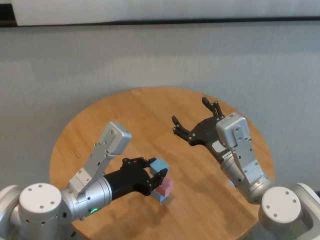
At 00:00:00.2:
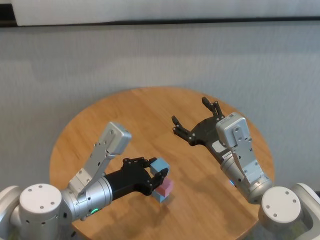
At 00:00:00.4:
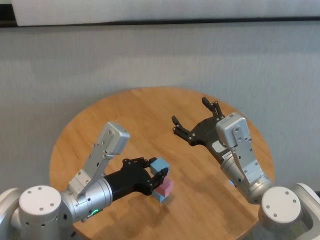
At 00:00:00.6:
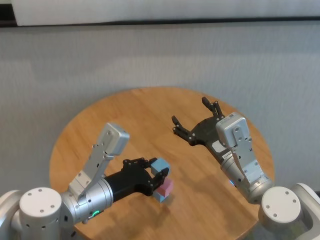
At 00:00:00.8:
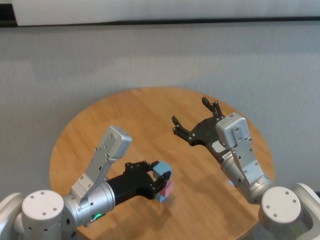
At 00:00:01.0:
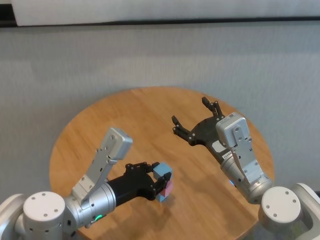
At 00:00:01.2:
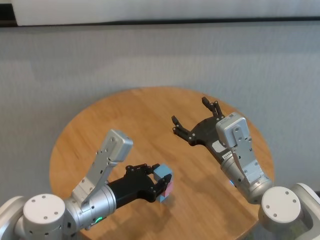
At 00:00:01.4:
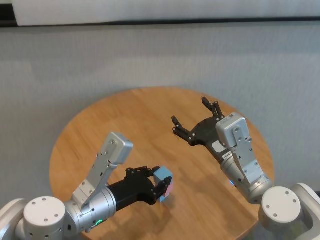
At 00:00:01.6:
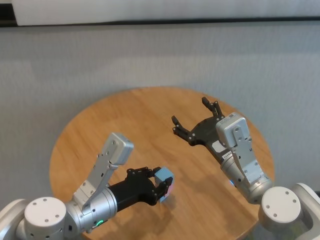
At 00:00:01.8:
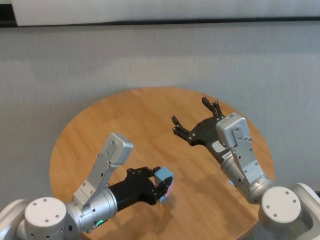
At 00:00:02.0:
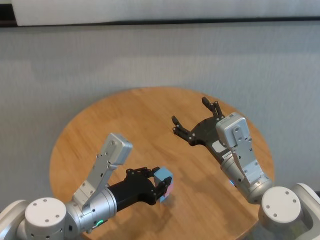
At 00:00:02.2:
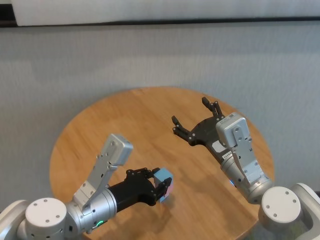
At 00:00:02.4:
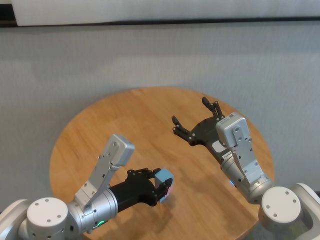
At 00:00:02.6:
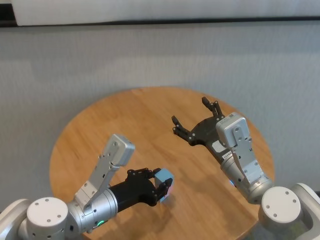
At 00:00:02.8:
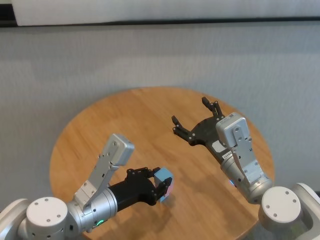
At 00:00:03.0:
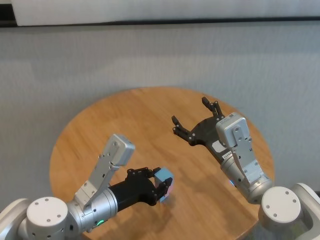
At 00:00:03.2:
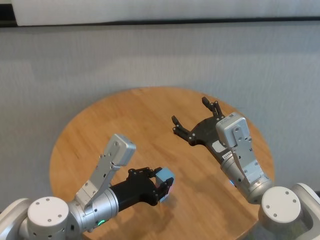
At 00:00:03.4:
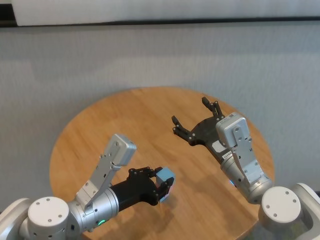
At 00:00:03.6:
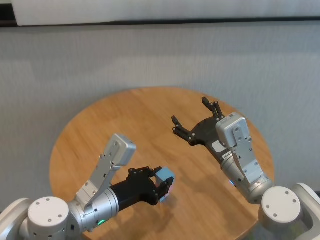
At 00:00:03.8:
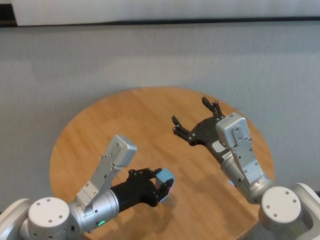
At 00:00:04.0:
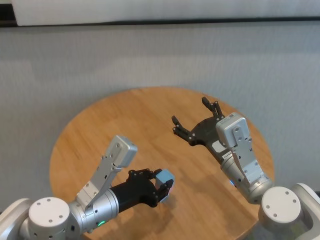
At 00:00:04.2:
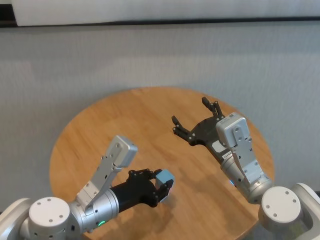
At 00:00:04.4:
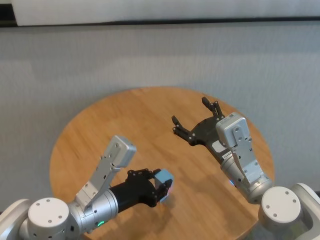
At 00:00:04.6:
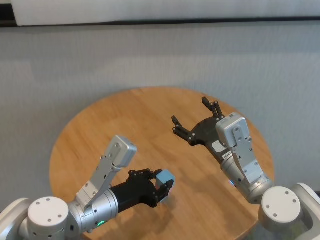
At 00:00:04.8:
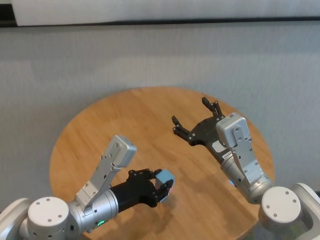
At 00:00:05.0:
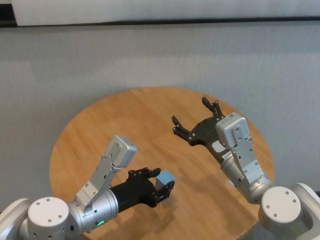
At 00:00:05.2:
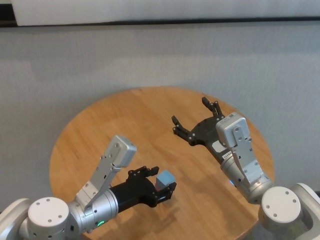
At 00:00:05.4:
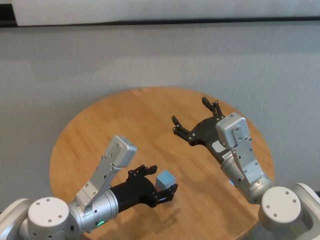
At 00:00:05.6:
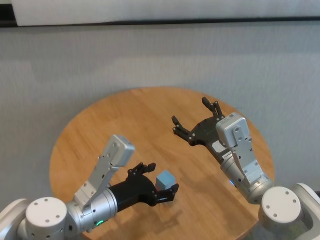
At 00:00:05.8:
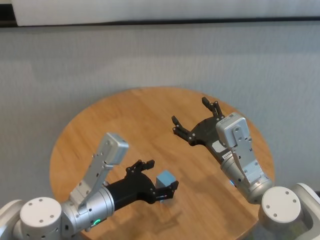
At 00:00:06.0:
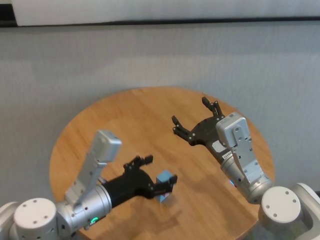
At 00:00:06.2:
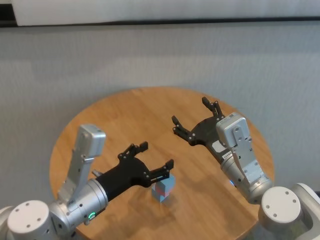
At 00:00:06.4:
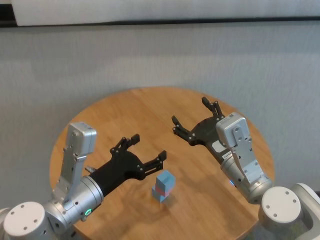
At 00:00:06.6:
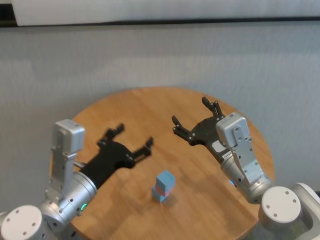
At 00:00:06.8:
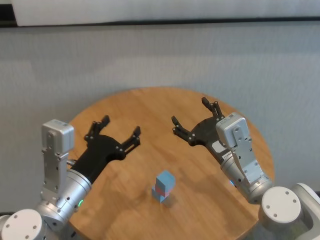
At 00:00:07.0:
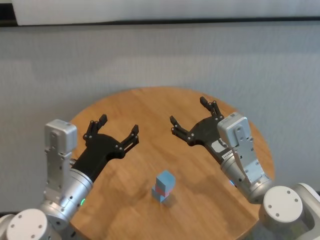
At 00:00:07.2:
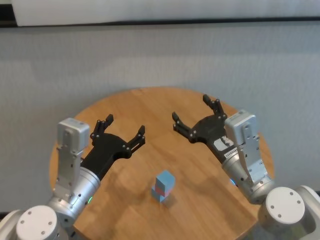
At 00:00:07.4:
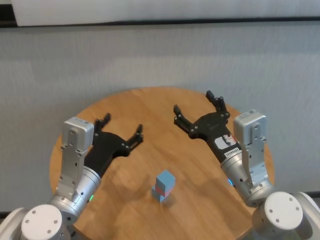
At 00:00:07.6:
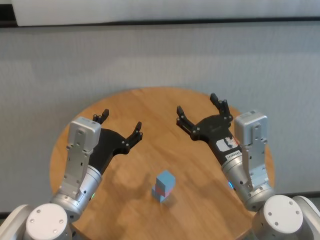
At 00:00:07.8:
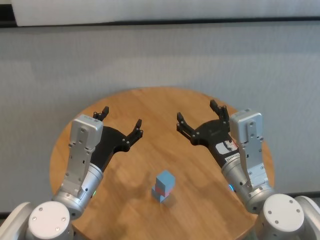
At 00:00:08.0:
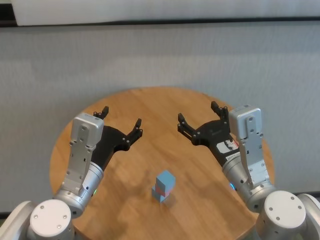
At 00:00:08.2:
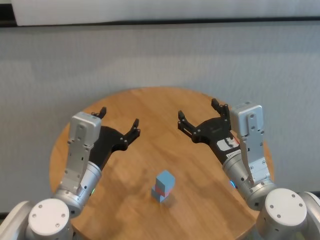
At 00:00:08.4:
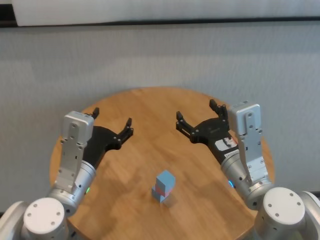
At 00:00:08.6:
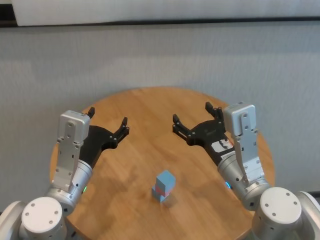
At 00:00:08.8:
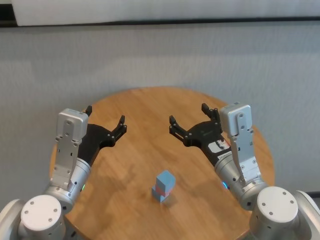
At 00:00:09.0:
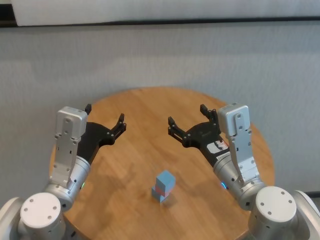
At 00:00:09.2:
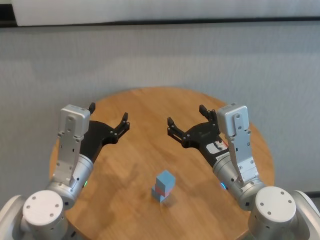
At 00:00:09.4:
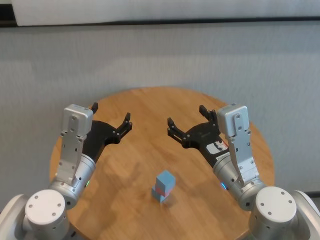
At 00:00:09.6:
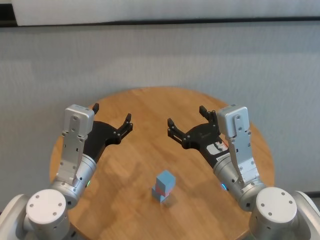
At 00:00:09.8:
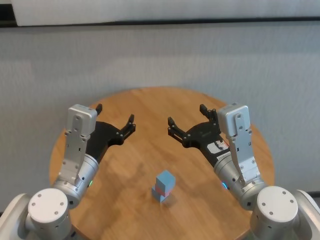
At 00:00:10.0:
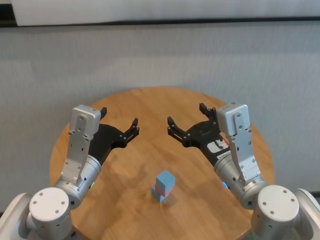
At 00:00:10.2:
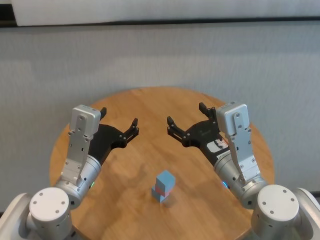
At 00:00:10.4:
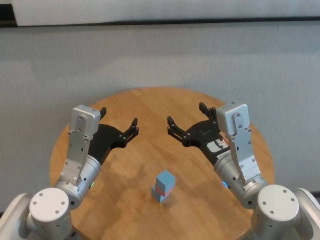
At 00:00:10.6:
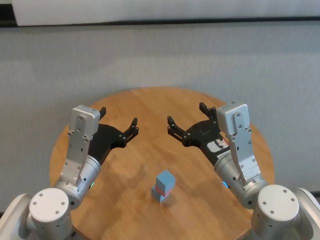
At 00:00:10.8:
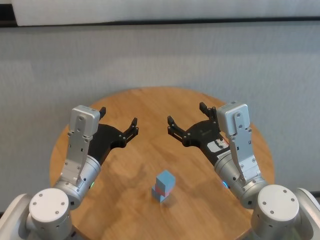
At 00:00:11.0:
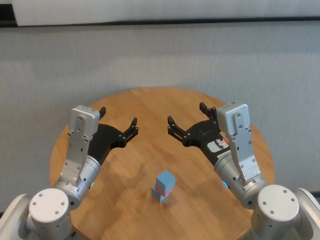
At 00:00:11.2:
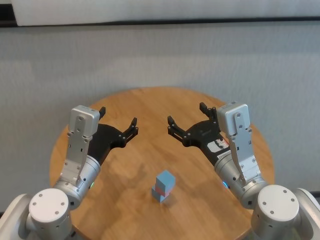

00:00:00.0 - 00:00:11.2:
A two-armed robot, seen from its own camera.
Task of the whole recording: stack building blocks on the table.
Step, 00:00:00.0 - 00:00:05.2: Place the blue building block on the pink building blocks with left gripper.

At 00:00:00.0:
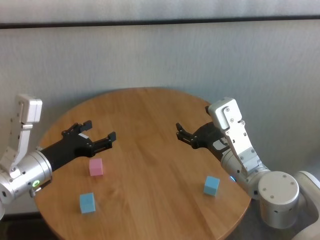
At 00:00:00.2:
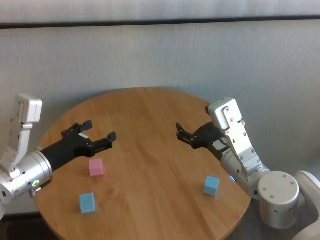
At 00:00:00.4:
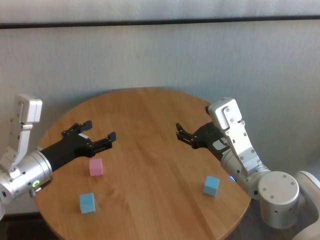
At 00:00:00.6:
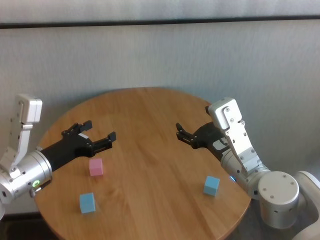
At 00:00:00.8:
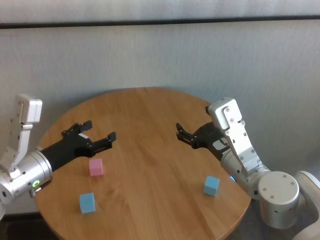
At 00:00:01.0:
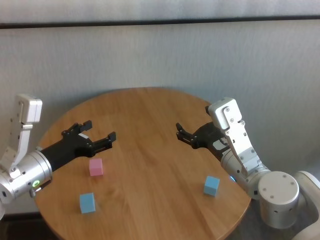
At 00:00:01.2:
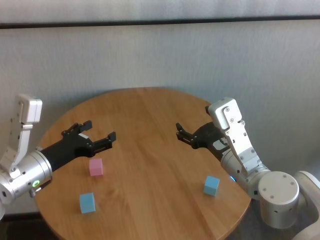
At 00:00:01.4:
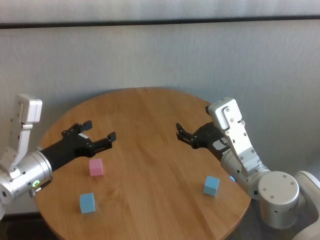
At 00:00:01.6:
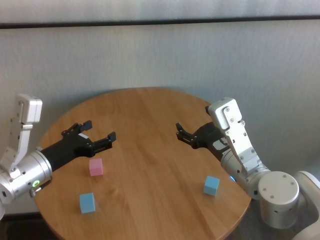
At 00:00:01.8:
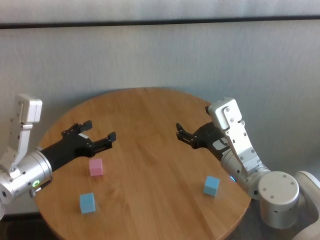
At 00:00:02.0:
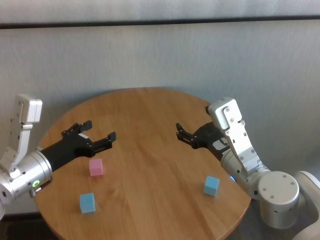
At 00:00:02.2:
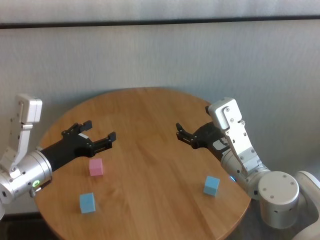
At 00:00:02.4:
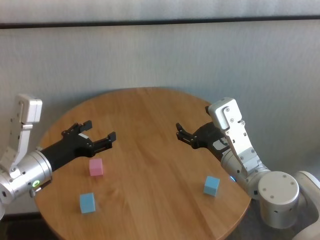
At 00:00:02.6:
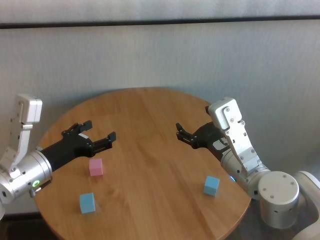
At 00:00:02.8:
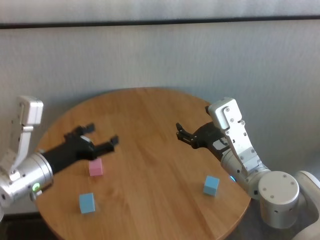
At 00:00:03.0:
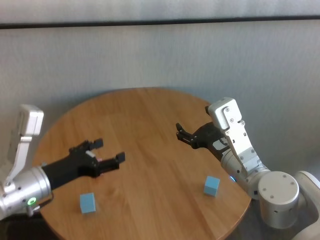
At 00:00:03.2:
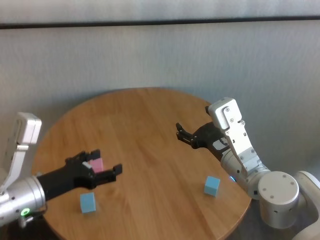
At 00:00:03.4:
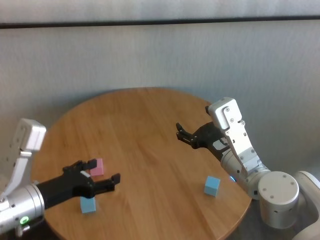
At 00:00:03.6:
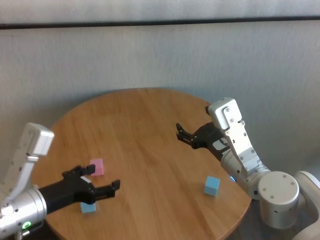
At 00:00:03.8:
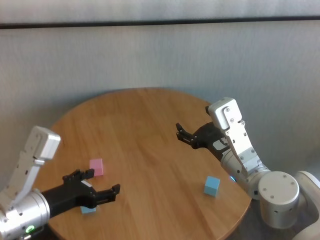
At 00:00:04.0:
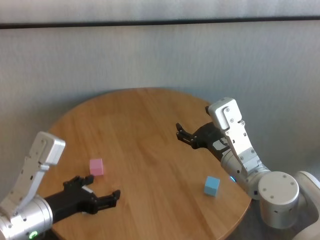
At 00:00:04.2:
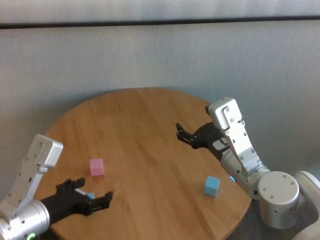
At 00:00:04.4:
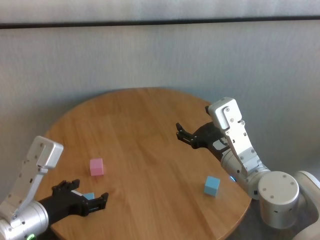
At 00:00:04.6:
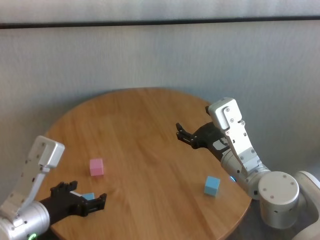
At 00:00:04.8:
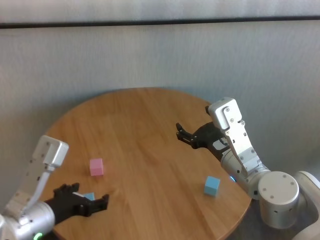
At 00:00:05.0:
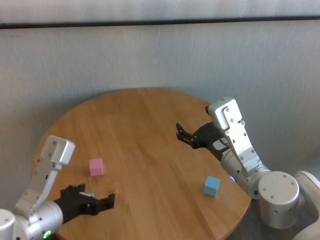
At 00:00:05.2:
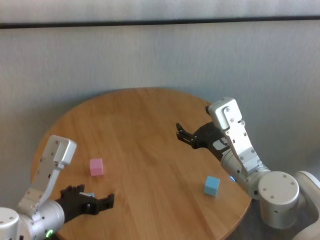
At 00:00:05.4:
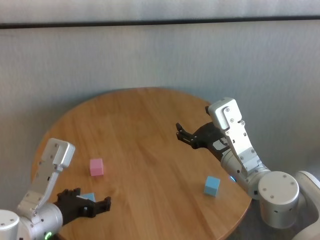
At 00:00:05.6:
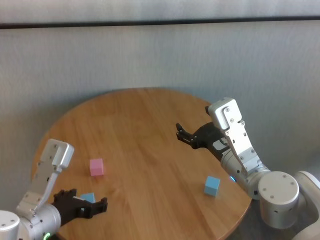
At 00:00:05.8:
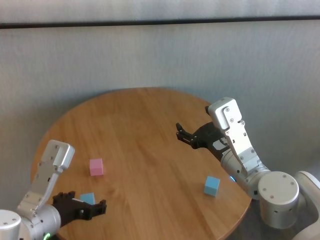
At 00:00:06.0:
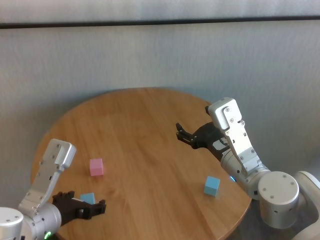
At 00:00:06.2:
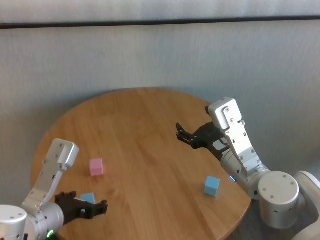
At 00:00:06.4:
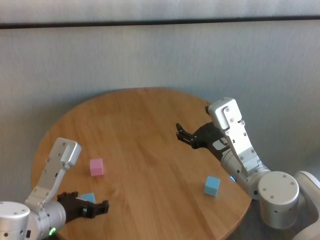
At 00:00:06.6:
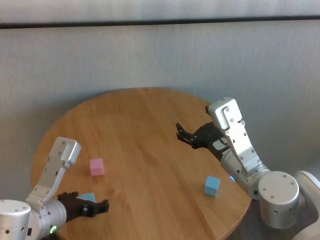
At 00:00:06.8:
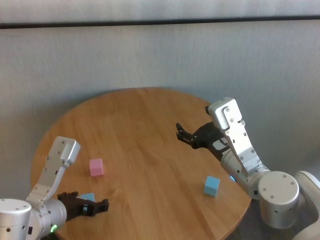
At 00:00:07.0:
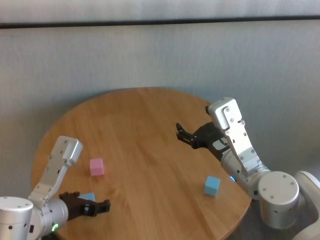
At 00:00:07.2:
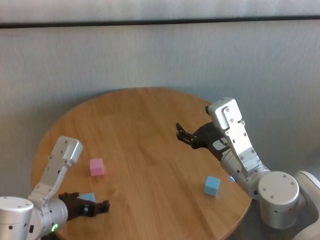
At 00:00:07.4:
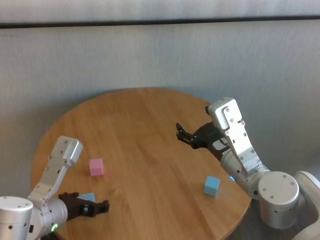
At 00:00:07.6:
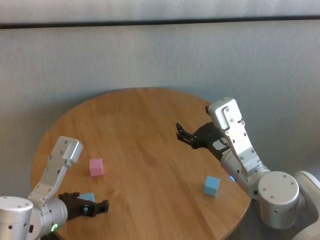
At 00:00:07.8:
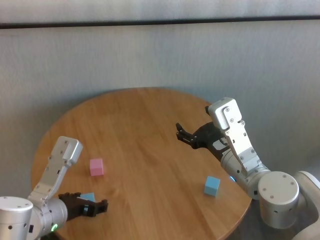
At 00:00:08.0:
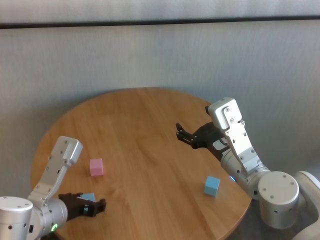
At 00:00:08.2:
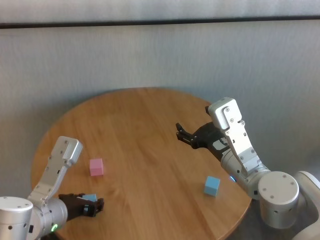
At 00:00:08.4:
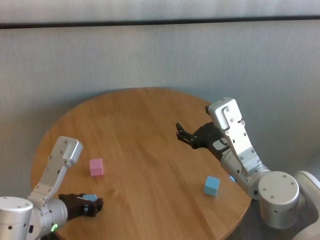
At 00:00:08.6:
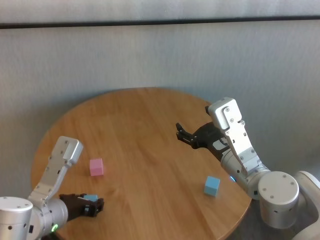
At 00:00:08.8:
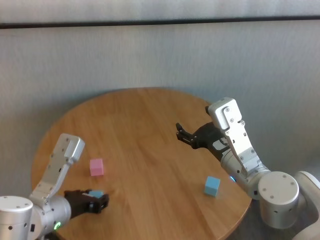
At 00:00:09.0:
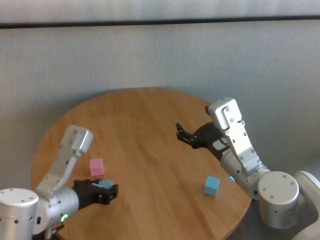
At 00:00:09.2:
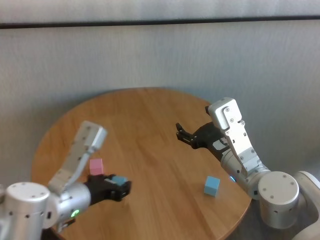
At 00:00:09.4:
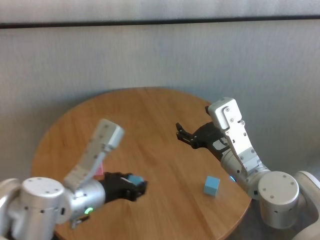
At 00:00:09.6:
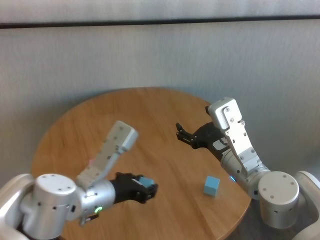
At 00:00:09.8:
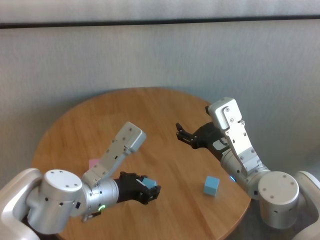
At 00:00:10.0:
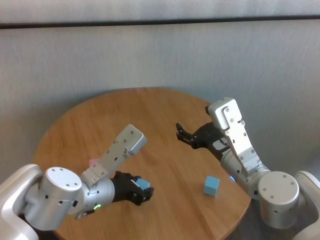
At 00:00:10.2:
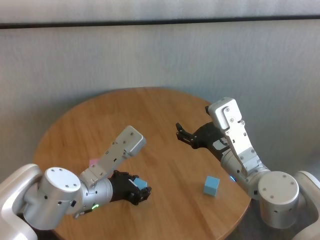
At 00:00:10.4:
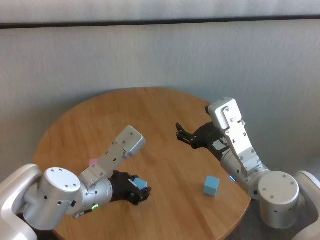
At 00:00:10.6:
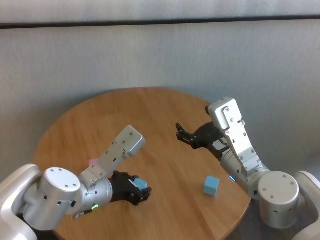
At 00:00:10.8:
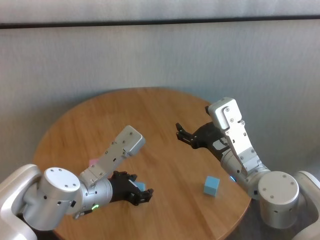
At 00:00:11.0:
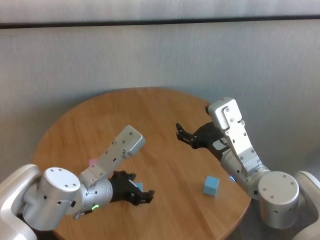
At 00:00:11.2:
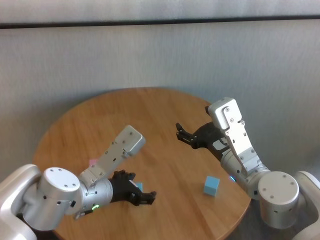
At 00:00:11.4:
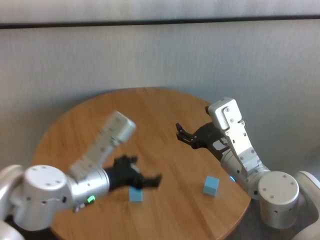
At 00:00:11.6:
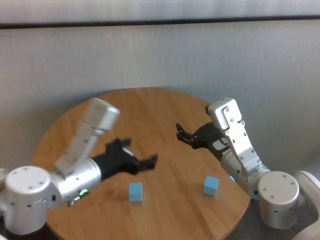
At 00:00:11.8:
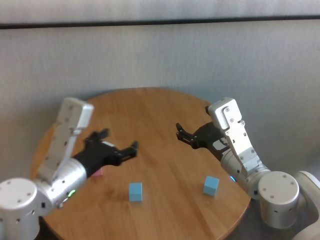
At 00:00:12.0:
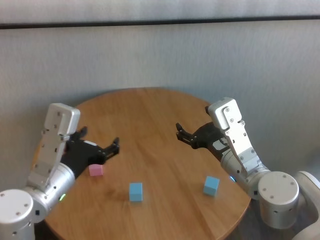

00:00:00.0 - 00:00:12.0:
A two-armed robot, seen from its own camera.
Task of the whole recording: stack building blocks on the table.
Step, 00:00:00.0 - 00:00:08.4: Grasp the blue building block with left gripper.
Step, 00:00:08.6 - 00:00:11.0: Place the blue building block in the center of table with left gripper.
